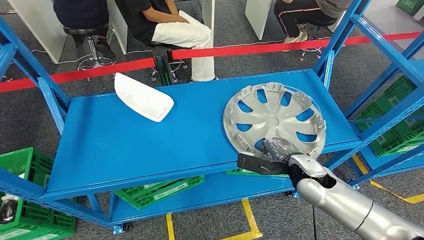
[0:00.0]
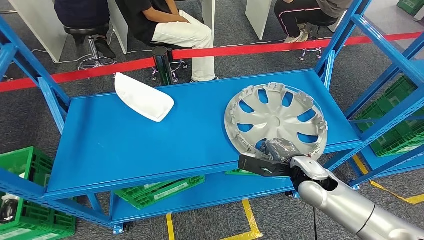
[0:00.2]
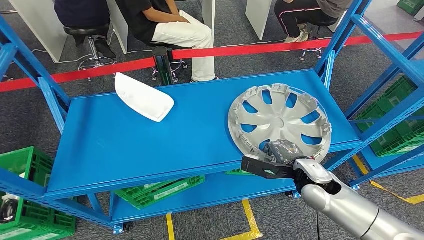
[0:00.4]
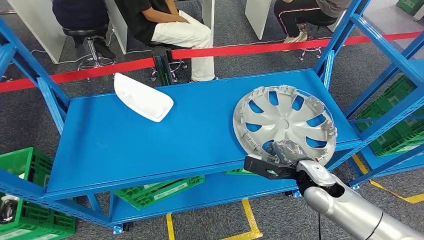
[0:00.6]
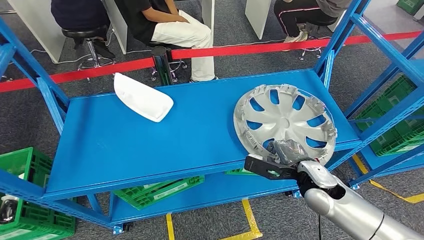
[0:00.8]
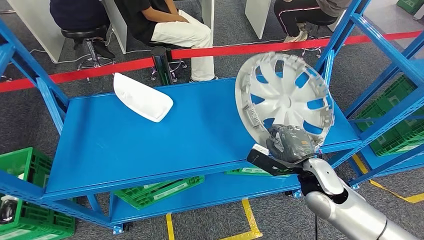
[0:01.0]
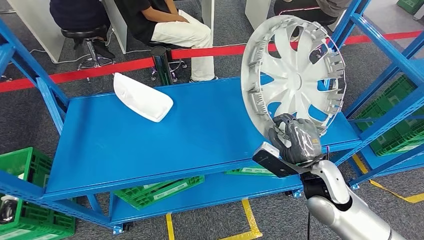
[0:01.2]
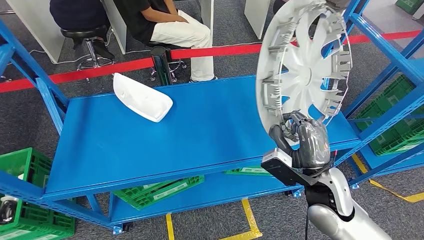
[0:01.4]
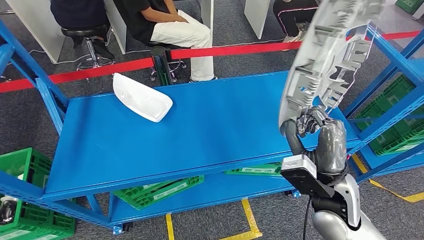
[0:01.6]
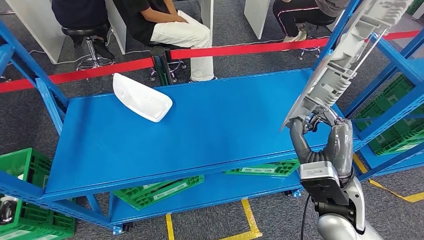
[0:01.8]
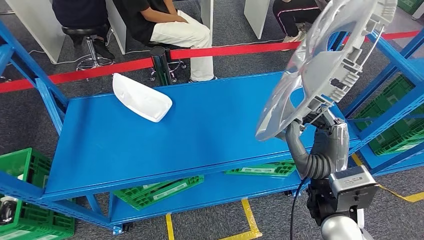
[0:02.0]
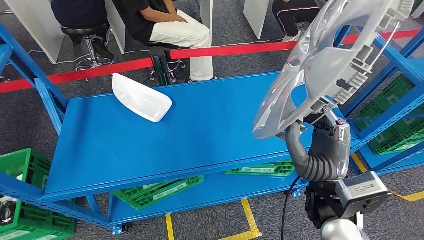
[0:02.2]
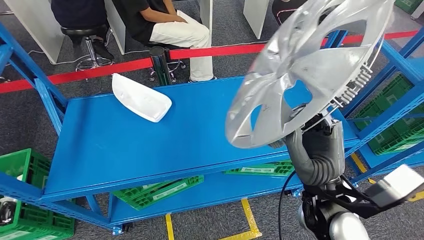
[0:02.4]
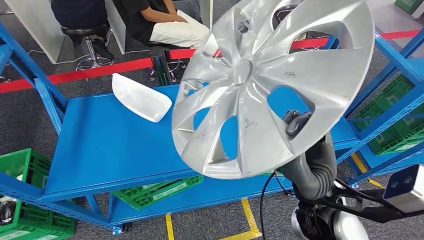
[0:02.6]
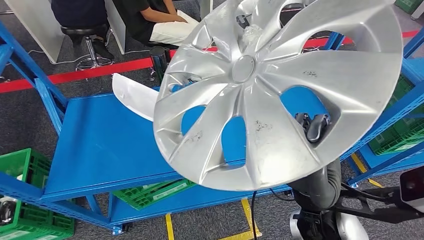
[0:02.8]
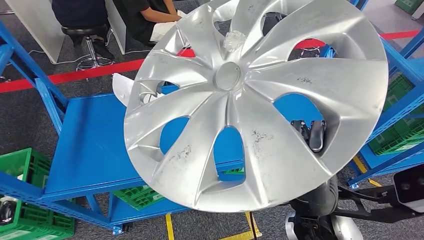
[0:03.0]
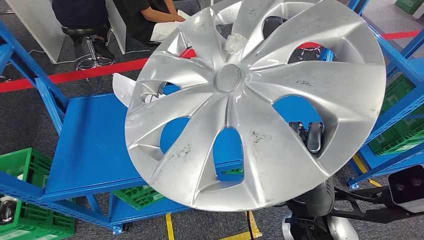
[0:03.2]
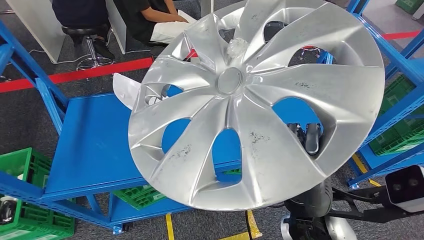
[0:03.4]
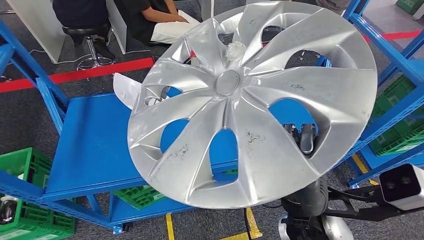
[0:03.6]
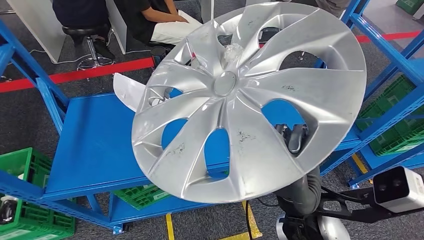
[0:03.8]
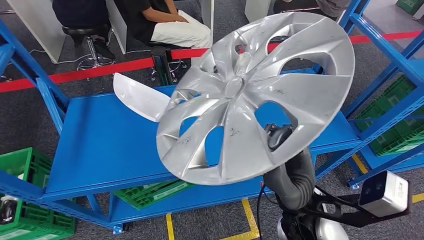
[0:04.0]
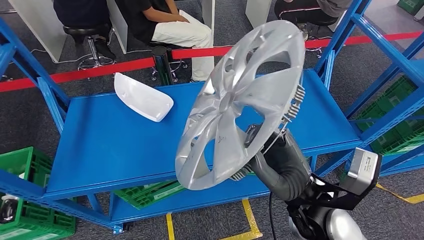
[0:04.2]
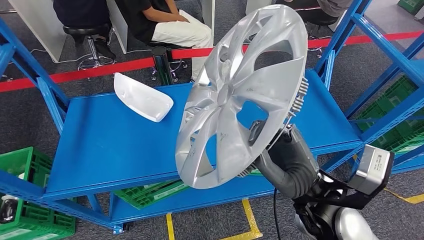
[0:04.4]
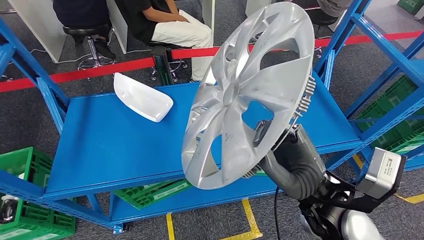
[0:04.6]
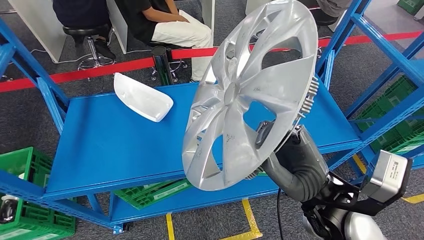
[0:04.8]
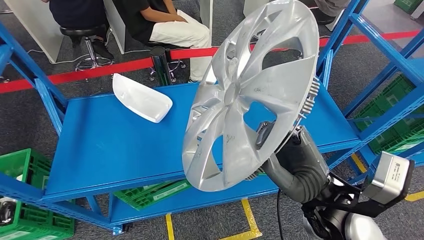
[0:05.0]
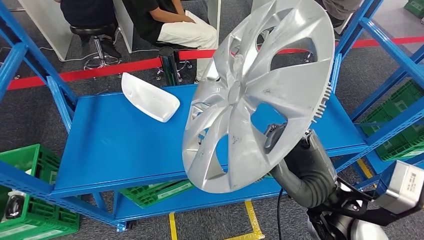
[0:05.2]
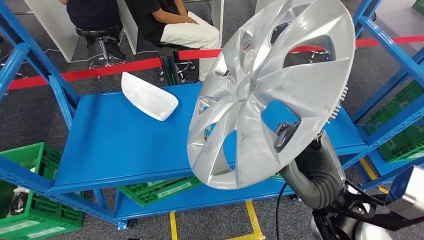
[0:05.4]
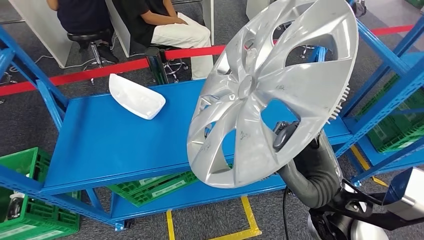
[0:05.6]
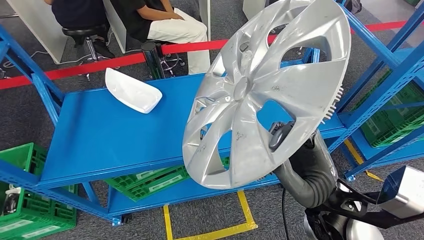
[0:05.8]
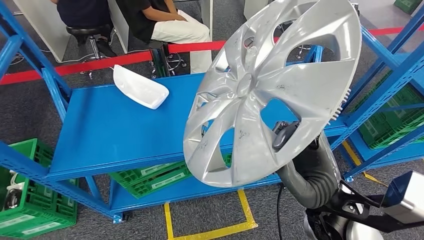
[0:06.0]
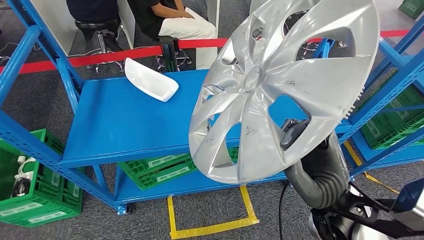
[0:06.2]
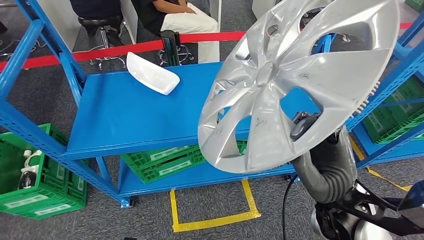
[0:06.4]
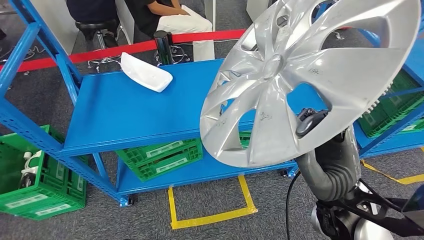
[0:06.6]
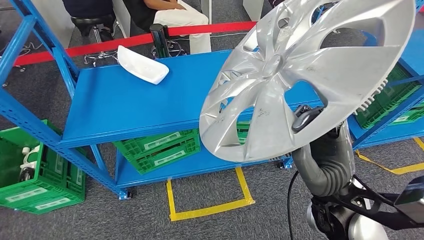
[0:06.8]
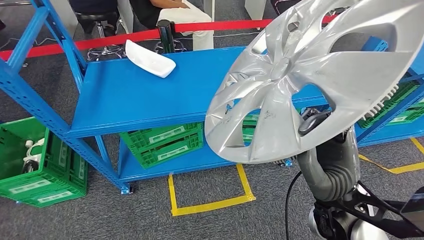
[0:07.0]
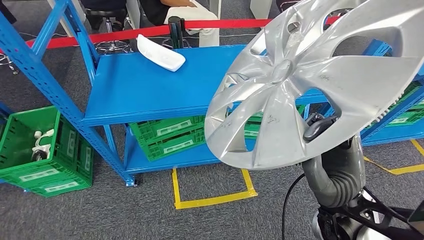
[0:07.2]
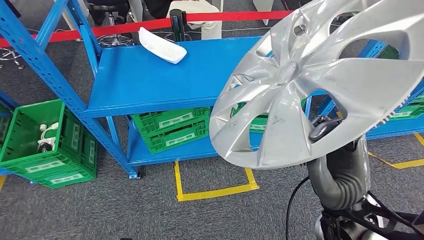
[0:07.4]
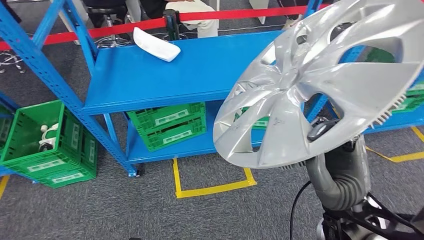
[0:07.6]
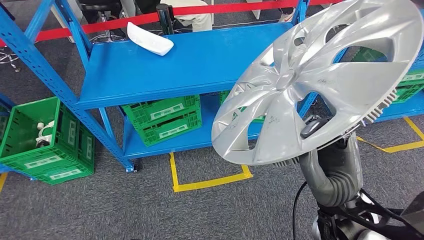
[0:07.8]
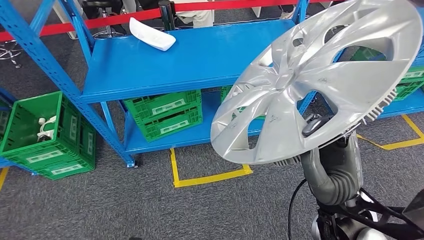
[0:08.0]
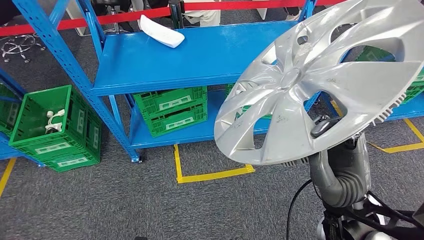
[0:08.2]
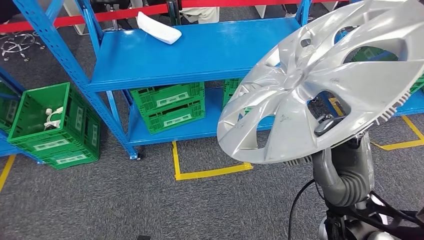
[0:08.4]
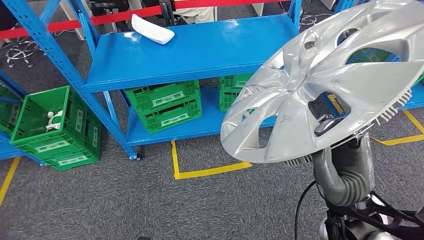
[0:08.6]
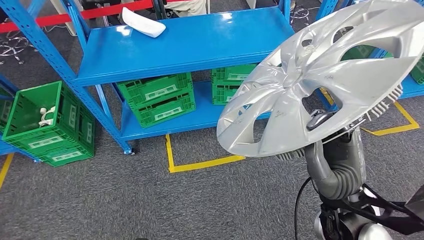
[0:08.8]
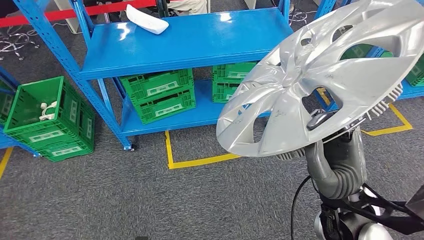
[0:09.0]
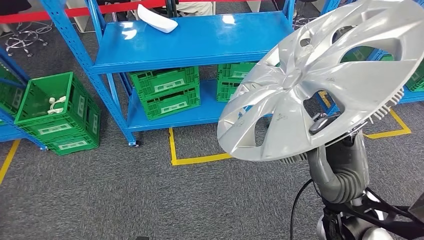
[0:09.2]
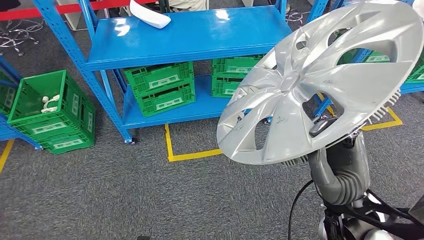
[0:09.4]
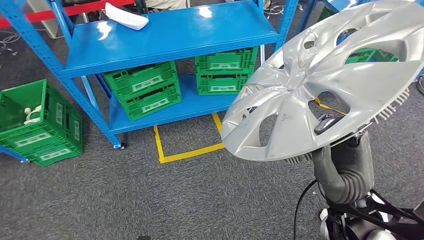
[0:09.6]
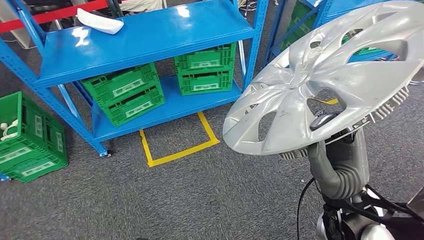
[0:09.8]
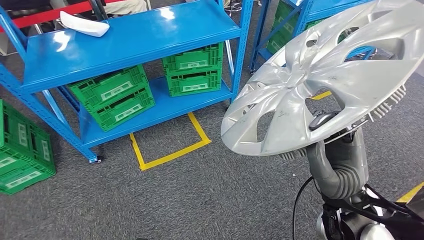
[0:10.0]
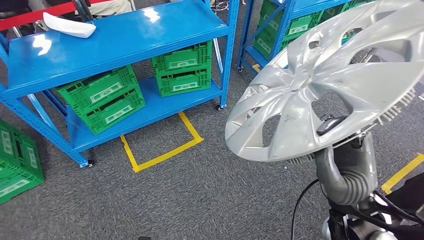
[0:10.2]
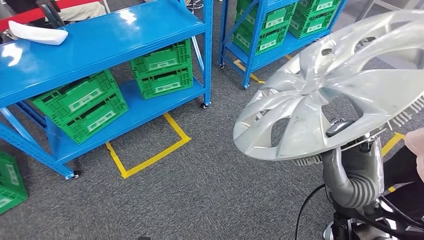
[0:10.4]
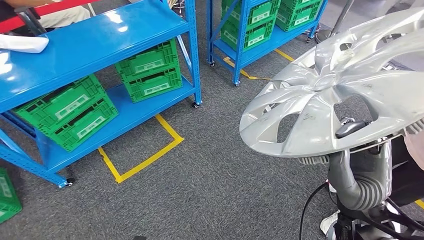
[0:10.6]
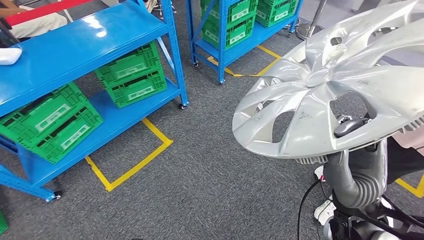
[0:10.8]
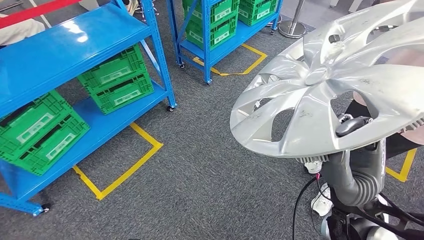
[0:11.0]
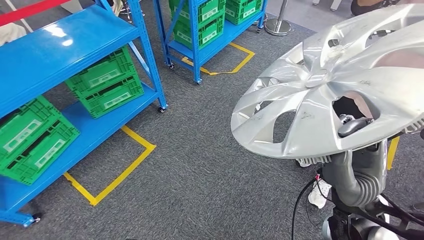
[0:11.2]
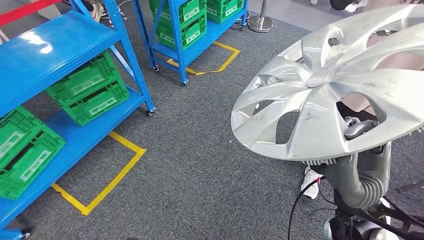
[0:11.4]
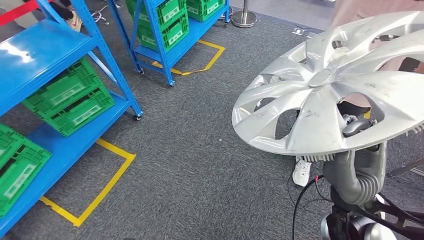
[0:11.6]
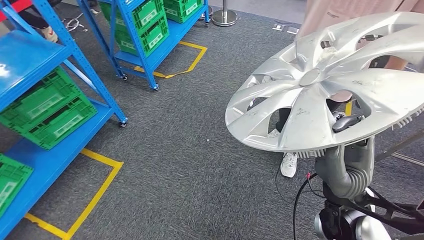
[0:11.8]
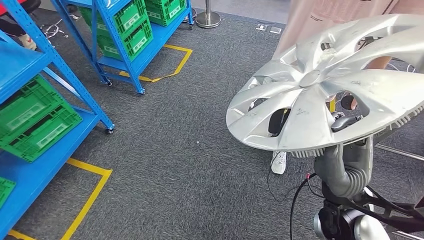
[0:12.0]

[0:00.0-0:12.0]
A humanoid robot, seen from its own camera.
Step, 0:00.0 to 0:02.4: Pick up the small parts from the shelf.

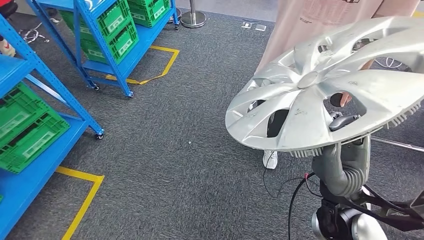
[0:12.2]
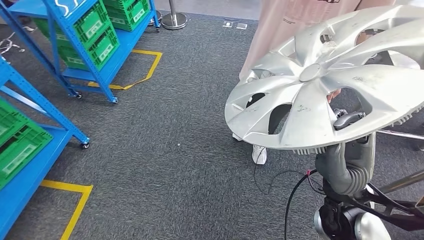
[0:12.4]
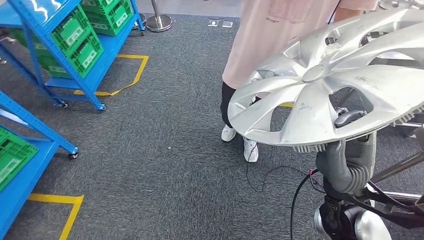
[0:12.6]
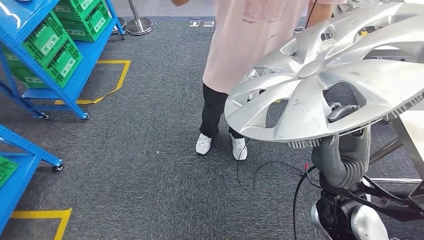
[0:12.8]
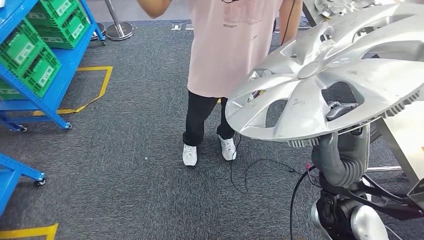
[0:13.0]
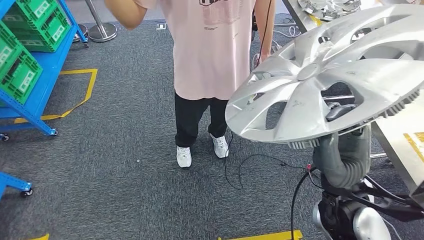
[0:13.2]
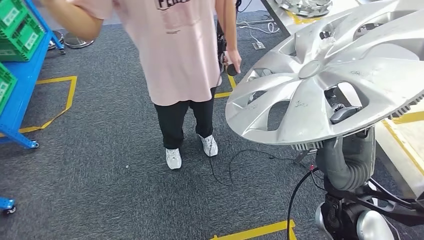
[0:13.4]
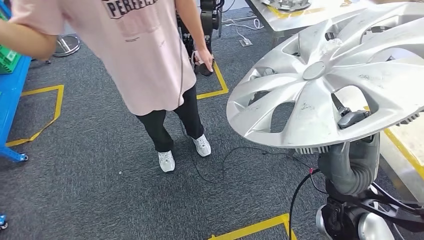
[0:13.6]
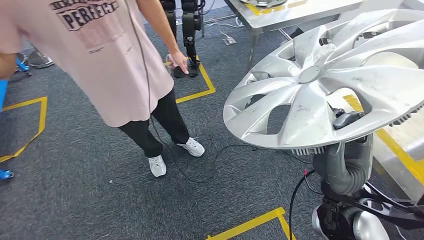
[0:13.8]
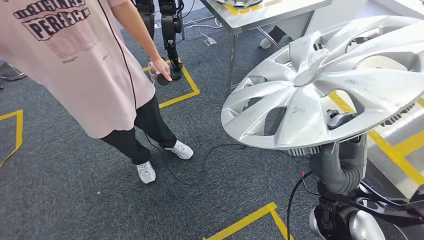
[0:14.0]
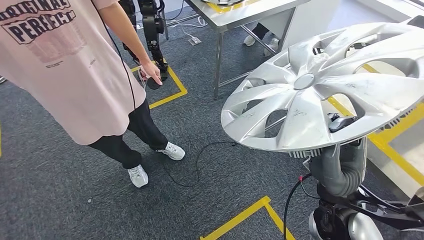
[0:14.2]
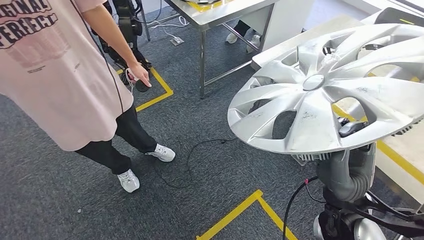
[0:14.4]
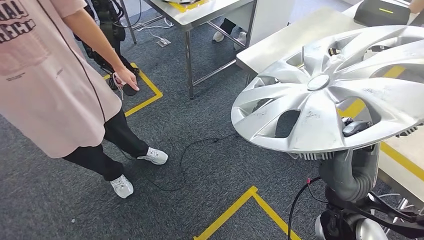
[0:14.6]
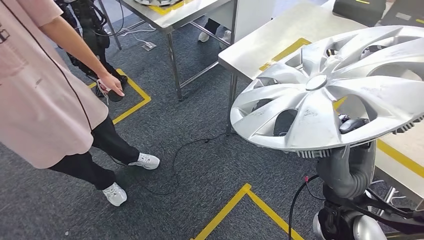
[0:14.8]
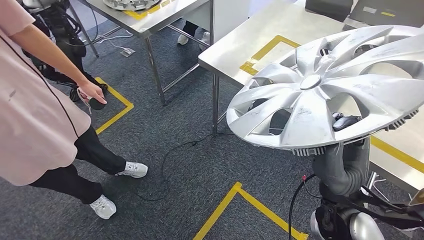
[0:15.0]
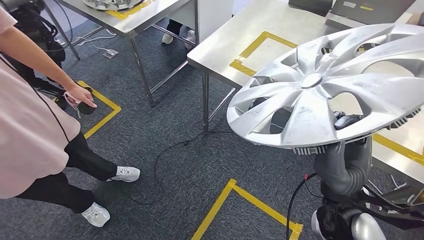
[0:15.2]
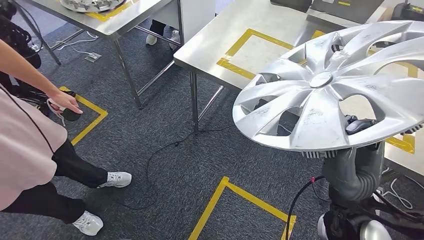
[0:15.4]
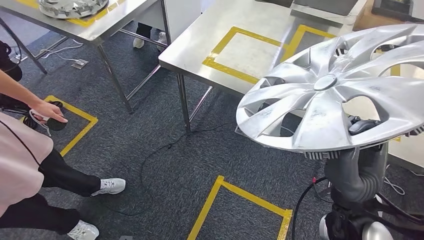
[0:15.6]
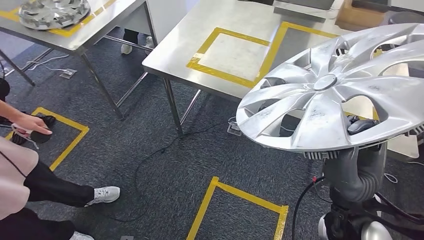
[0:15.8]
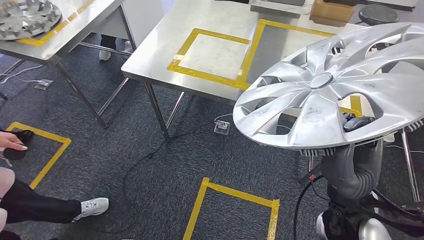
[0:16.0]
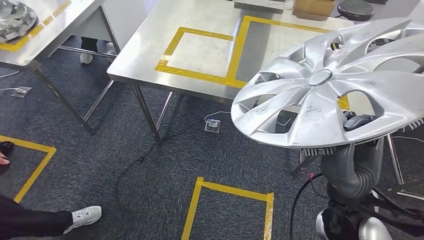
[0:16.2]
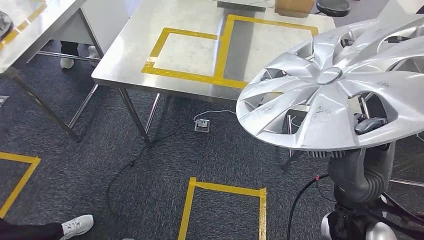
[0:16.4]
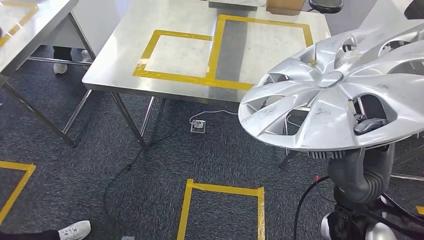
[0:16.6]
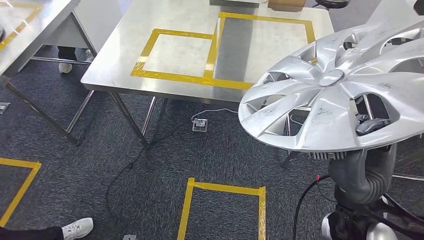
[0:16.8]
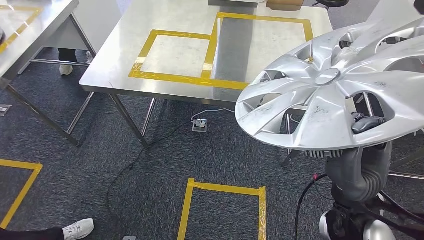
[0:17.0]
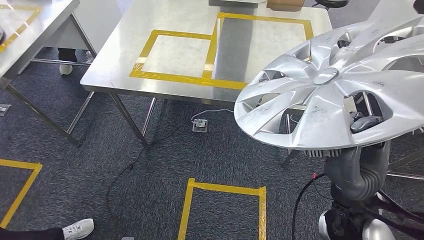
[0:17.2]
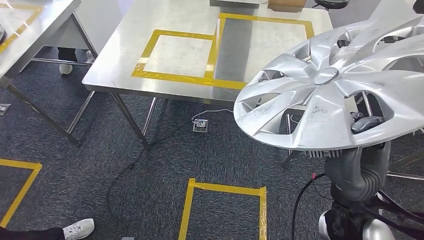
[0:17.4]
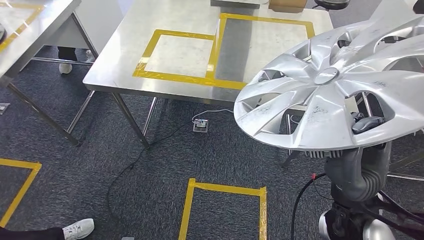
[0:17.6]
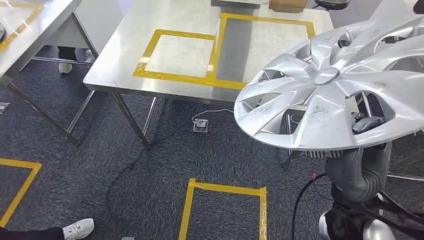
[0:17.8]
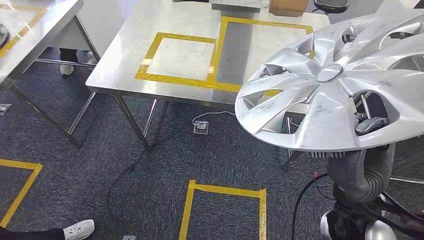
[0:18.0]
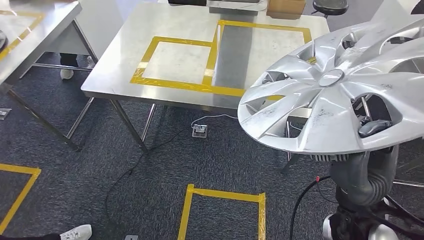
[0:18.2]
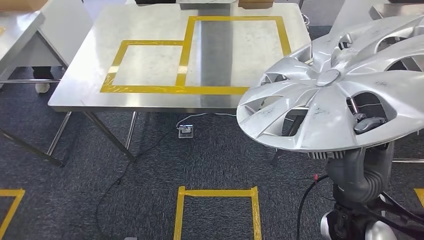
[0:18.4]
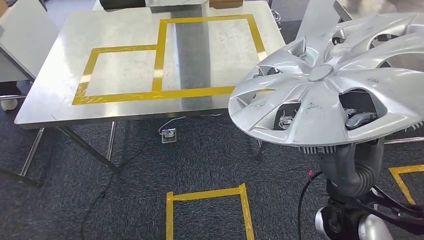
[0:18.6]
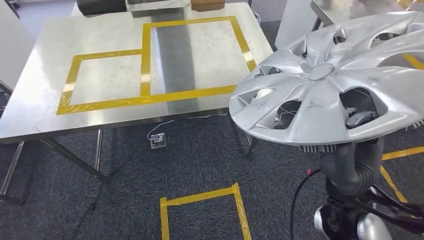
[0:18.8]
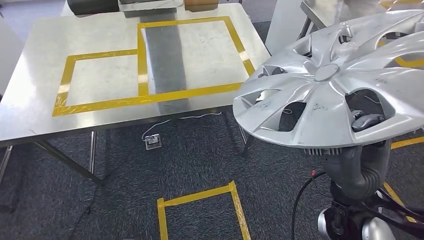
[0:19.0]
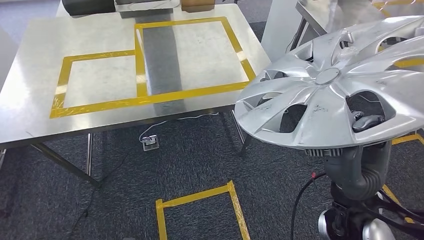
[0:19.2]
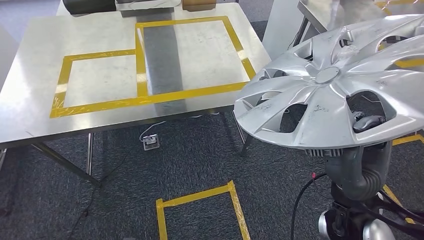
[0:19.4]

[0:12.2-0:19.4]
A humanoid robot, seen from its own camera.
Step, 0:12.2 to 0:17.6: Move the small parts to the workbench.
